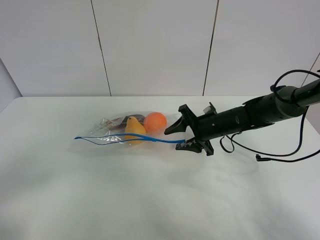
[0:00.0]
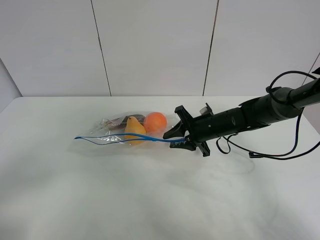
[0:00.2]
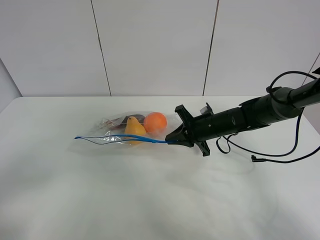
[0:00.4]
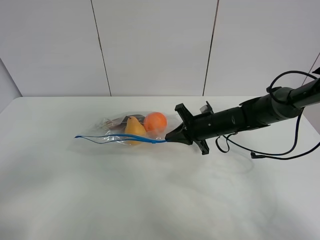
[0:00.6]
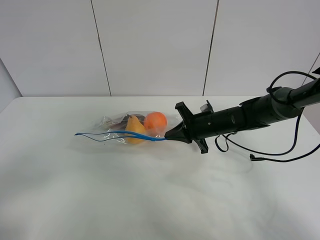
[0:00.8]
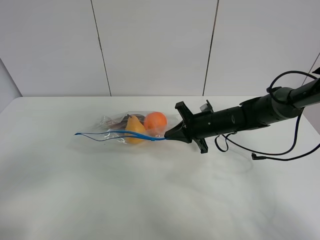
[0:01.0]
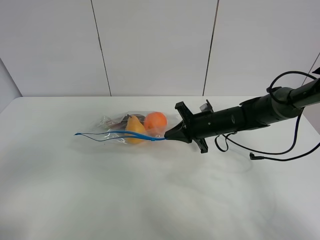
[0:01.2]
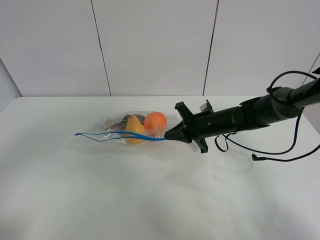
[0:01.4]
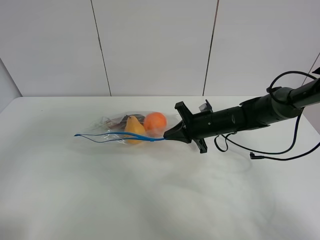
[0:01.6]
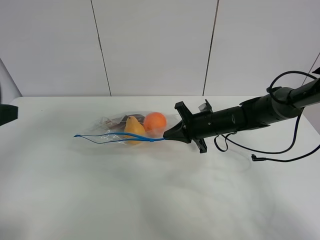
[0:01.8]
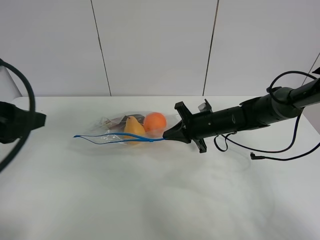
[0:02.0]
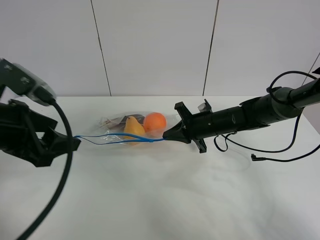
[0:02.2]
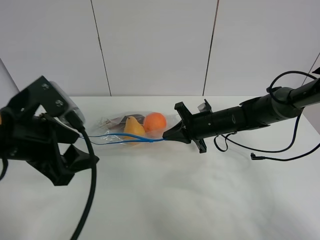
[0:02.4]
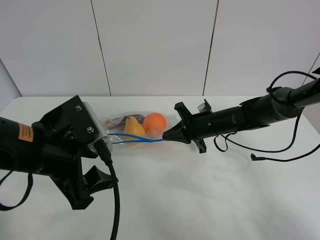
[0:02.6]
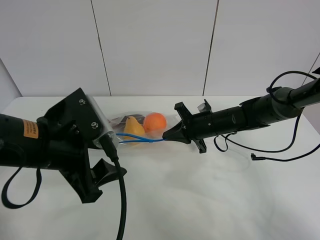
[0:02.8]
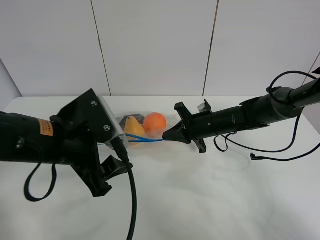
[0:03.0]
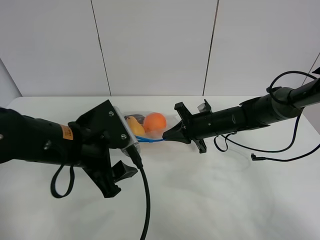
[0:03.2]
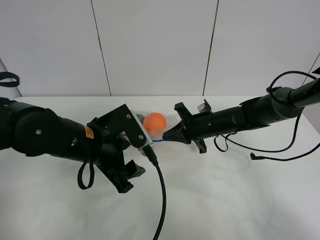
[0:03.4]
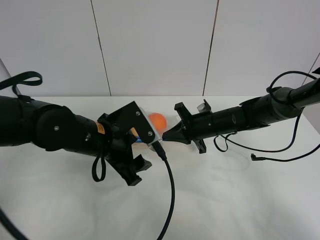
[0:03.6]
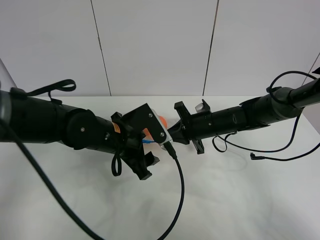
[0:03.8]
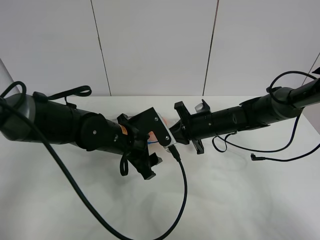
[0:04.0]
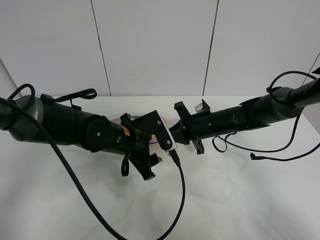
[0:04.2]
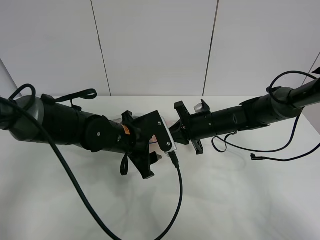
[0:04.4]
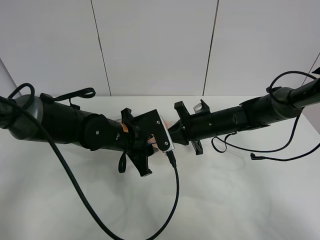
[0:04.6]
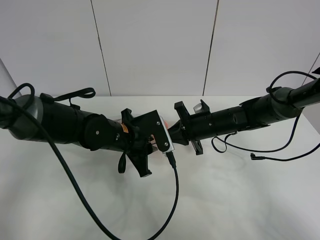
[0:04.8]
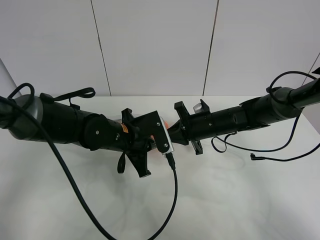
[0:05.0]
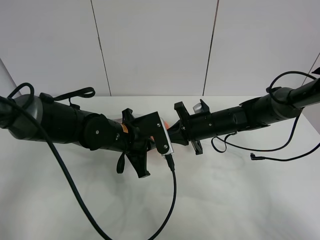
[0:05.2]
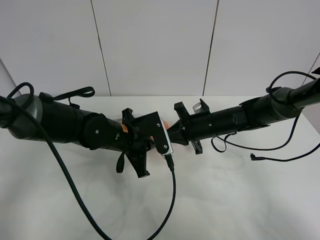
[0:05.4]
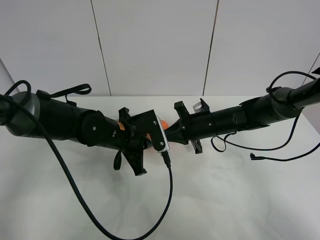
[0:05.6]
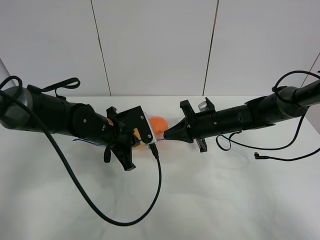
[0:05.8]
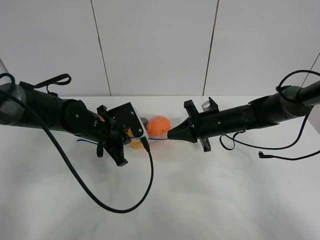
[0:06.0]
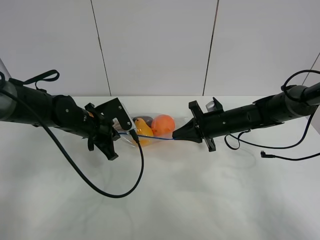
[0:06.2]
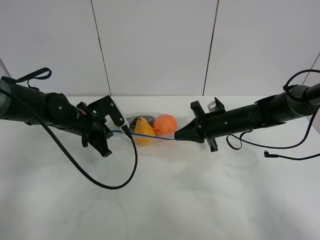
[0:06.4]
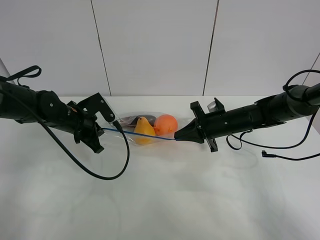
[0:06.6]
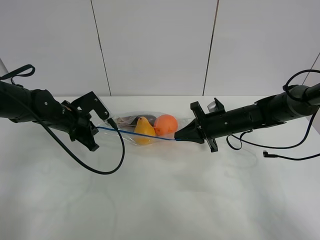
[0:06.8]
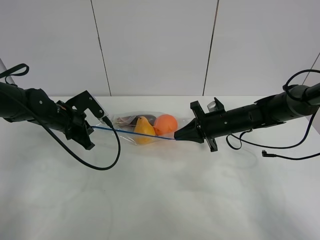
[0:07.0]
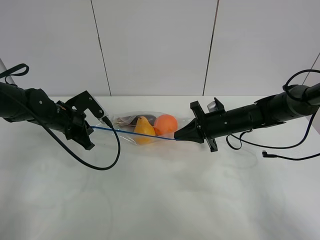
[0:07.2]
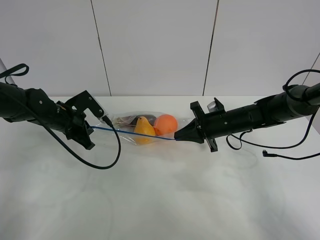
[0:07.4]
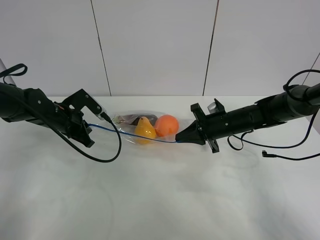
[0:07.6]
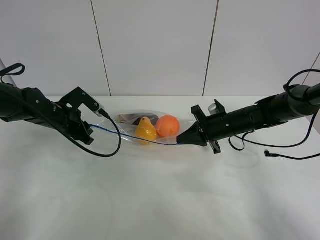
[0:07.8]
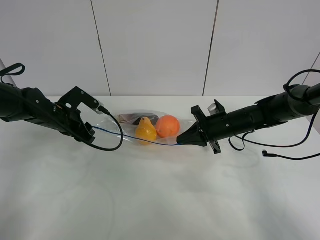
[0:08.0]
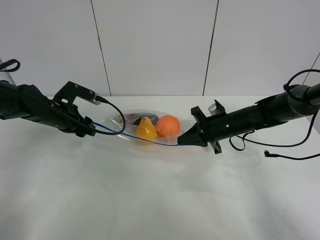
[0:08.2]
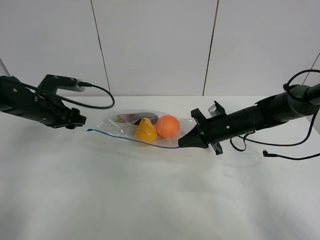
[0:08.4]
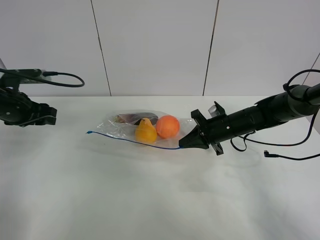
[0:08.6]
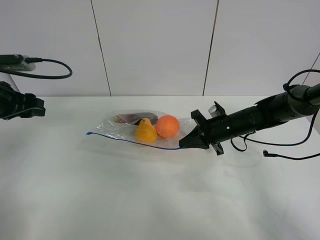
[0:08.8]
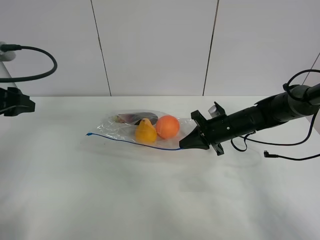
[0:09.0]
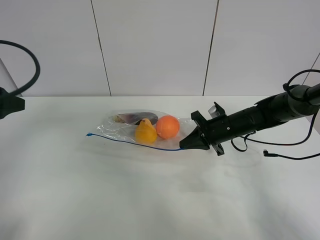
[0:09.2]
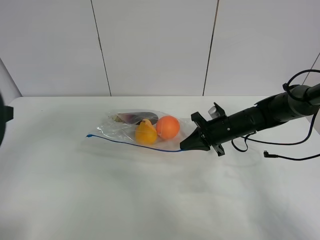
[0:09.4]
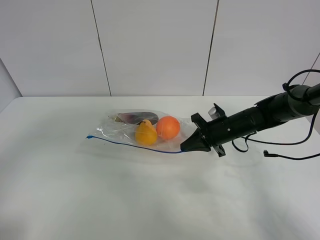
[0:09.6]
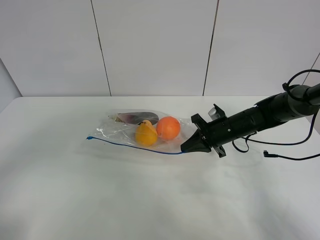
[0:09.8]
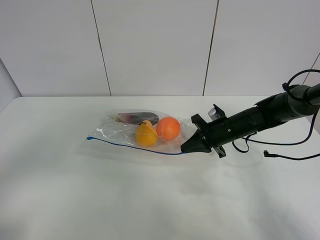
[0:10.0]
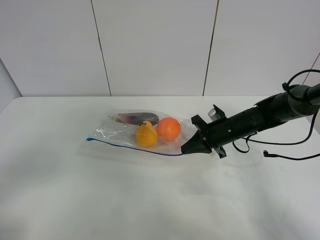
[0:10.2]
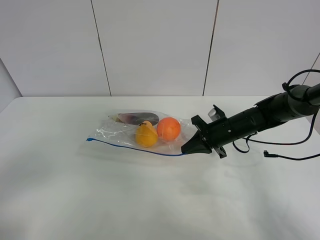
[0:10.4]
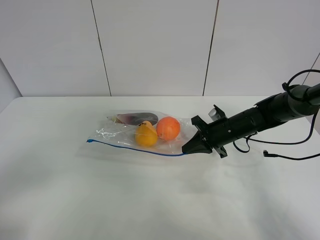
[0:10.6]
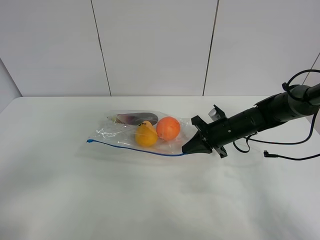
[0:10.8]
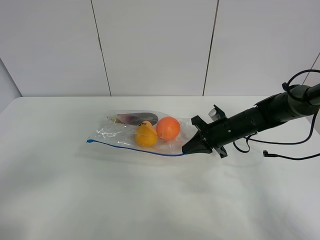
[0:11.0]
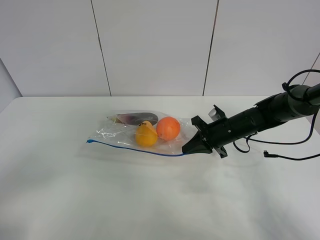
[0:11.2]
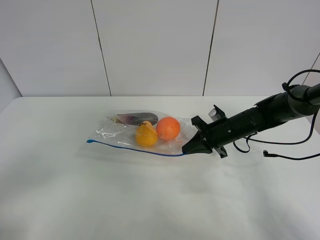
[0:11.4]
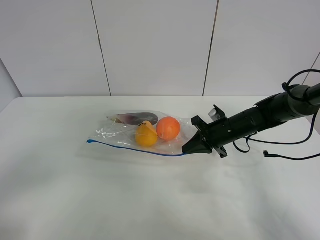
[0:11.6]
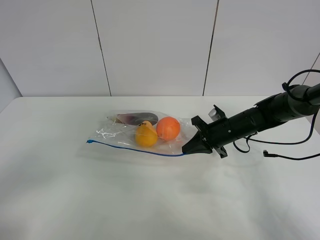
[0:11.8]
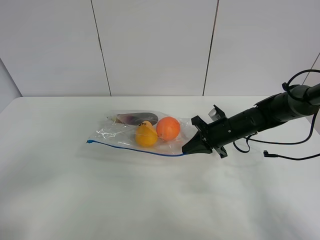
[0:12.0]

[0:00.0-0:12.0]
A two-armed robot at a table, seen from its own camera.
Step, 0:00.6 to 0:08.4: Pull the fruit bag with left gripper.
0:00.0 to 0:01.6: The left gripper heads forward and upward, covering about 10 cm. Meanwhile the right gripper closes.
0:01.6 to 0:03.0: The left gripper moves to the right, forward and downward, roughly 20 cm.
0:03.0 to 0:04.4: The left gripper heads forward, downward and to the right, covering some 15 cm.
0:04.4 to 0:06.0: The left gripper shifts roughly 5 cm to the left, and closes.
0:06.0 to 0:07.6: The left gripper shifts some 10 cm to the left.
0:07.6 to 0:09.0: The left gripper moves upward, backward and to the left, approximately 20 cm, and opens.
0:09.0 to 0:10.4: The left gripper moves backward, roughly 25 cm.

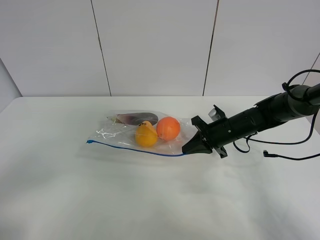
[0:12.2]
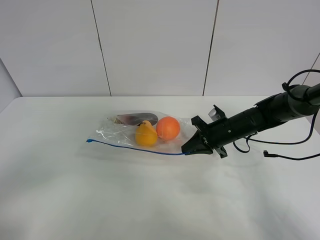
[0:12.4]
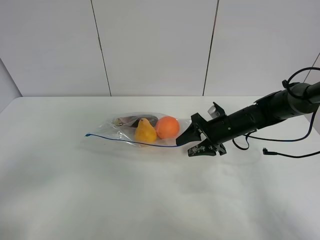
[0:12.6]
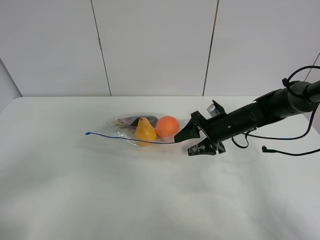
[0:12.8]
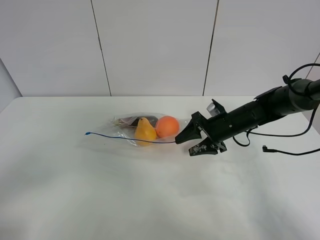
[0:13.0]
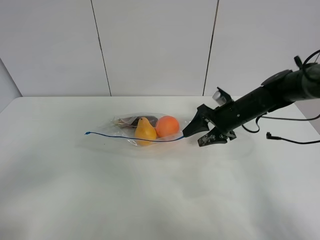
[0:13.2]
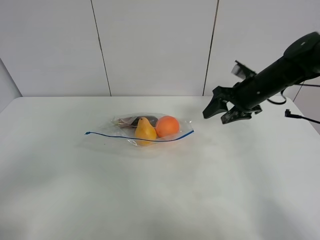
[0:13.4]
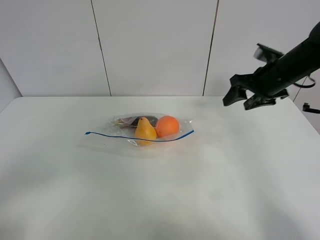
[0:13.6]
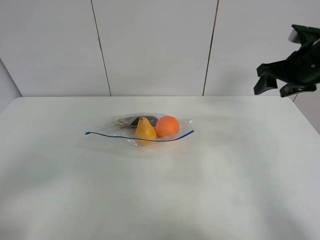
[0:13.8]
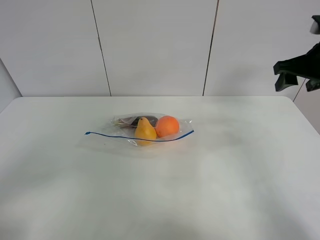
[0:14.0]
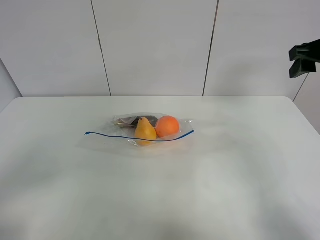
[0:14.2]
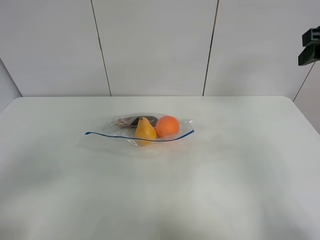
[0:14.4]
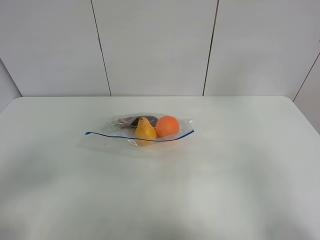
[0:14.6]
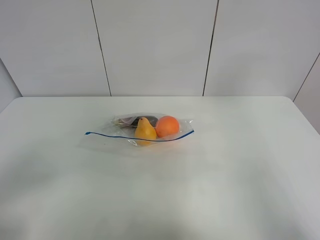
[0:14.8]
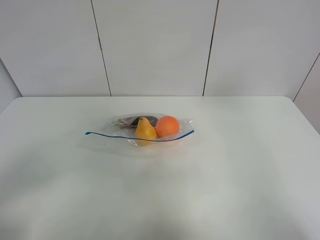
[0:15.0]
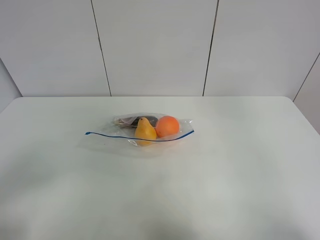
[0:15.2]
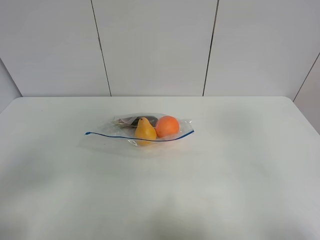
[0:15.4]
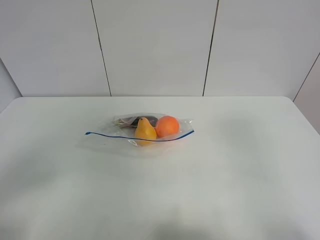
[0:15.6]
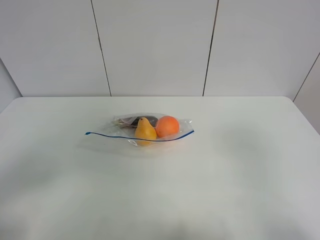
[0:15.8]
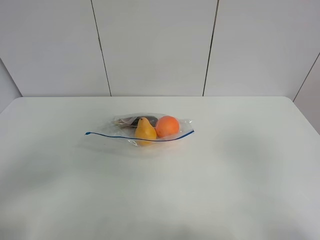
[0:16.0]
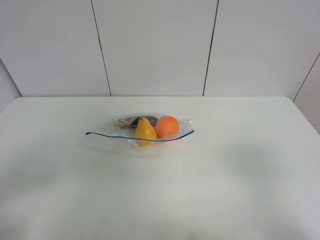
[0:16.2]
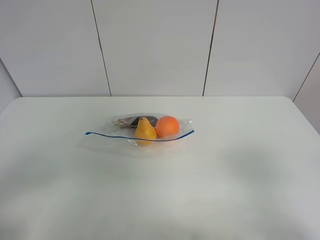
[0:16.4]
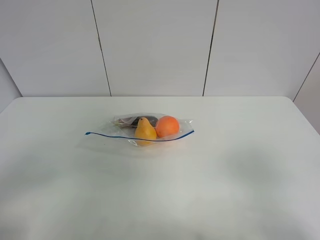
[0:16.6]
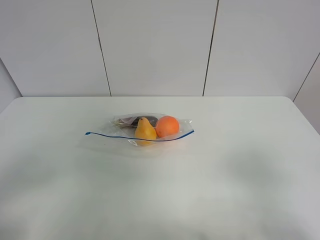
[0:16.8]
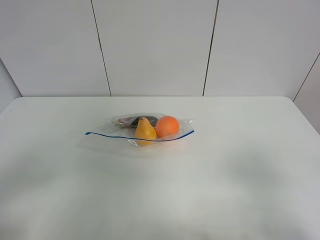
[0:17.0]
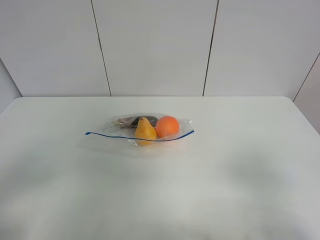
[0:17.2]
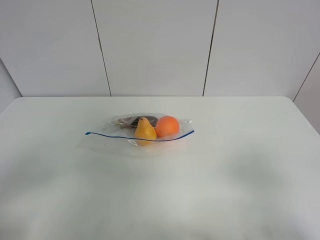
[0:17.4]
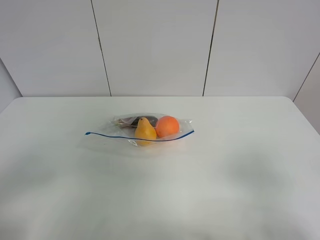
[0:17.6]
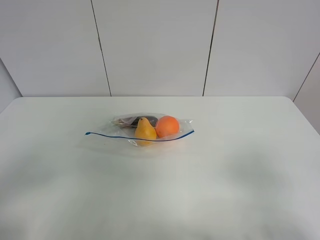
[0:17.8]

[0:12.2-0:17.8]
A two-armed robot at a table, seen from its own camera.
0:12.2 to 0:13.6: The right gripper shifts about 15 cm upward and to the right, and opens its fingers.
0:13.6 to 0:15.0: The right gripper shifts some 30 cm backward and upward.
0:15.0 to 0:16.4: The right gripper travels downward and backward by roughly 20 cm.
